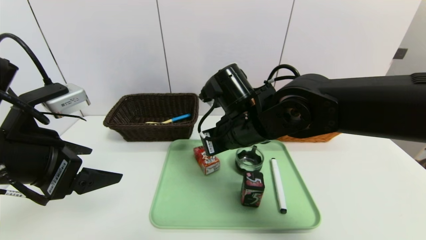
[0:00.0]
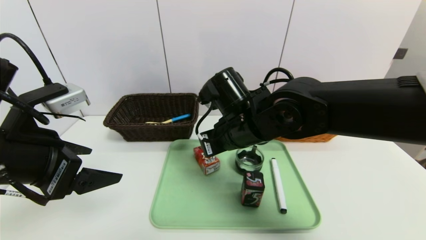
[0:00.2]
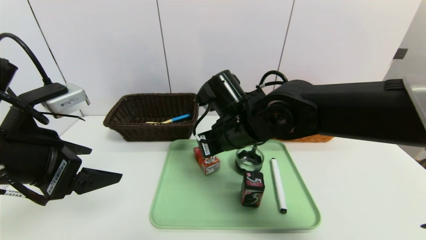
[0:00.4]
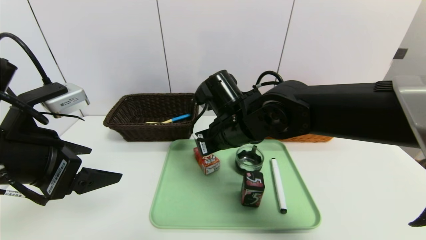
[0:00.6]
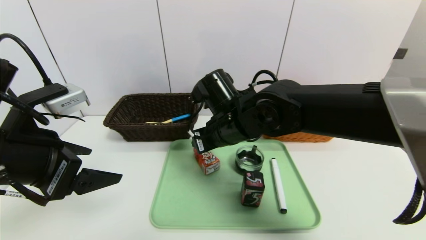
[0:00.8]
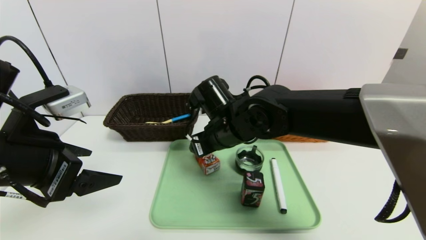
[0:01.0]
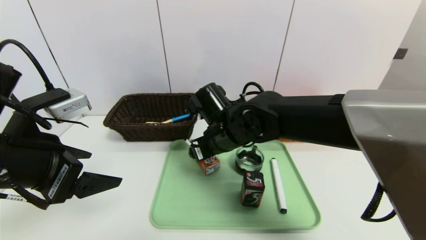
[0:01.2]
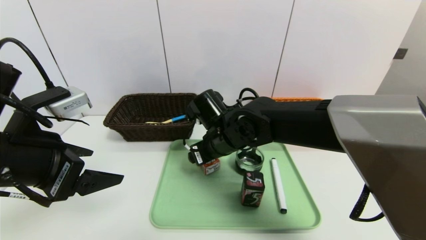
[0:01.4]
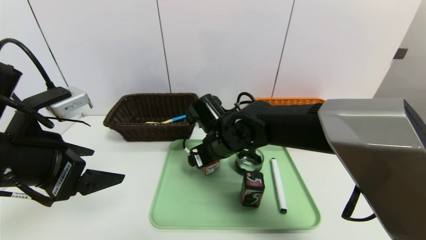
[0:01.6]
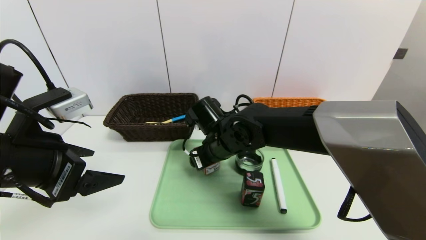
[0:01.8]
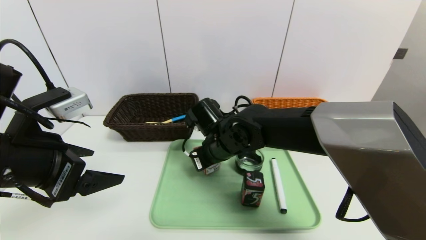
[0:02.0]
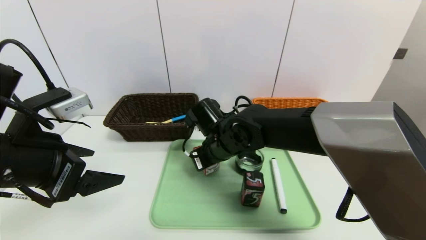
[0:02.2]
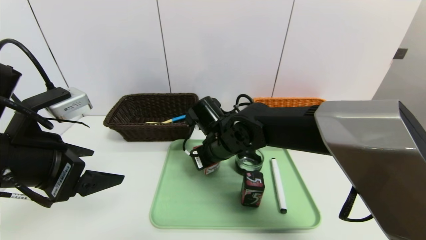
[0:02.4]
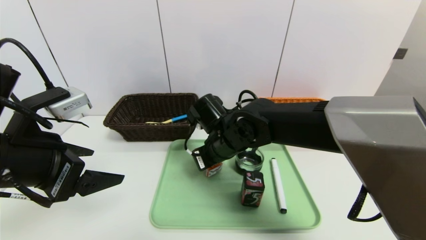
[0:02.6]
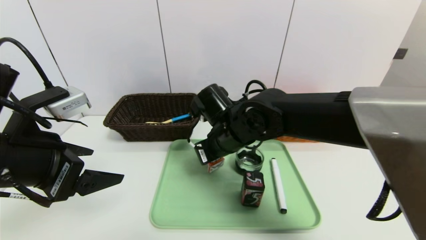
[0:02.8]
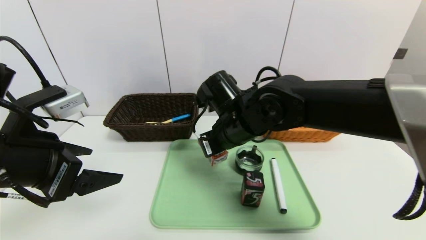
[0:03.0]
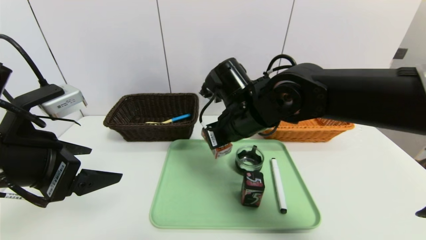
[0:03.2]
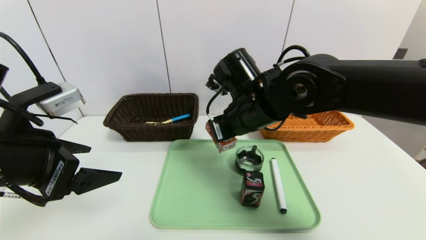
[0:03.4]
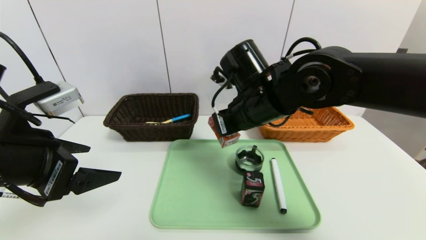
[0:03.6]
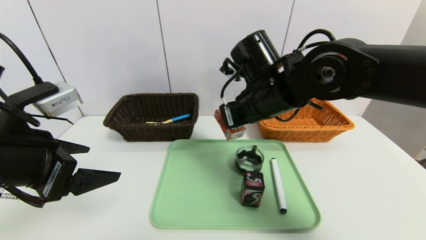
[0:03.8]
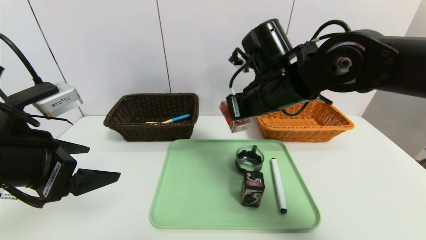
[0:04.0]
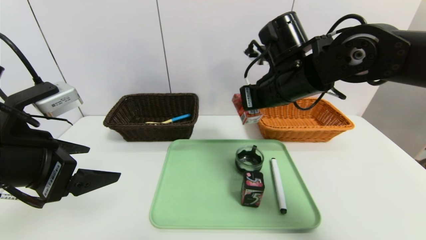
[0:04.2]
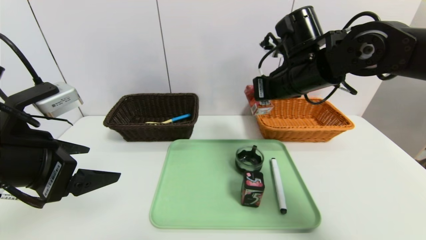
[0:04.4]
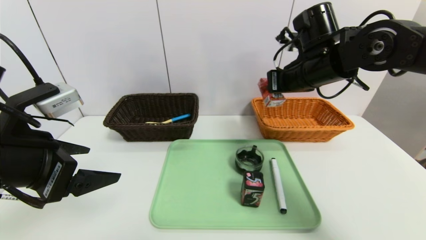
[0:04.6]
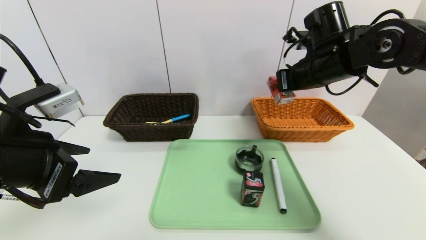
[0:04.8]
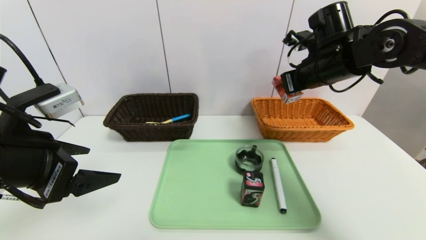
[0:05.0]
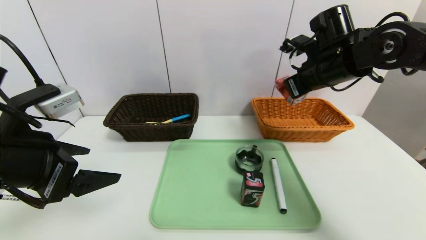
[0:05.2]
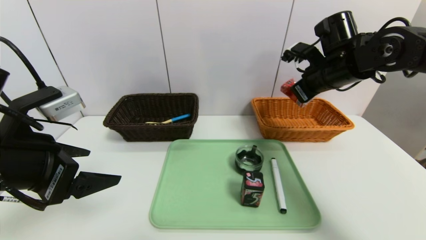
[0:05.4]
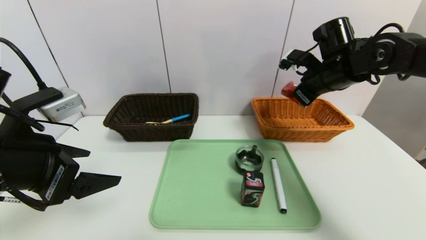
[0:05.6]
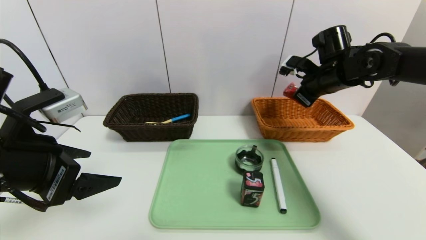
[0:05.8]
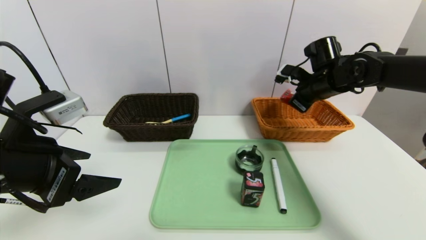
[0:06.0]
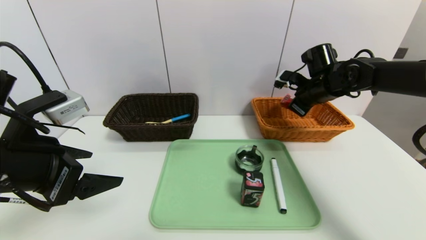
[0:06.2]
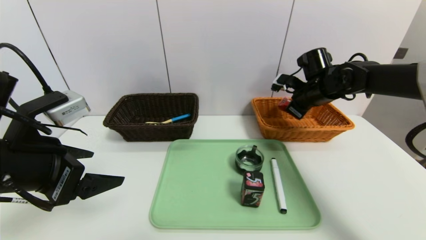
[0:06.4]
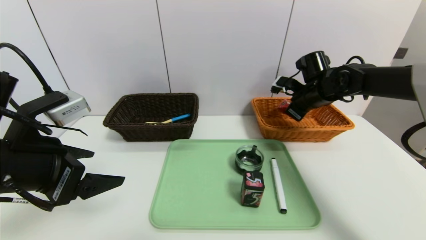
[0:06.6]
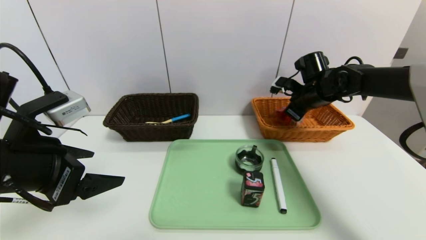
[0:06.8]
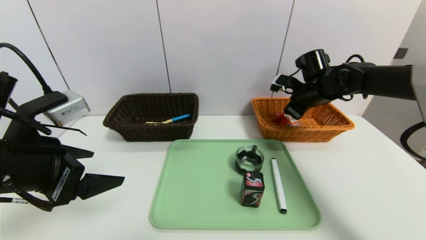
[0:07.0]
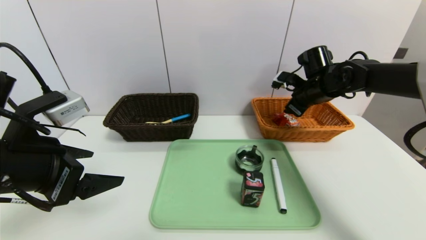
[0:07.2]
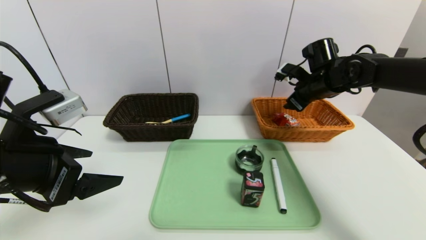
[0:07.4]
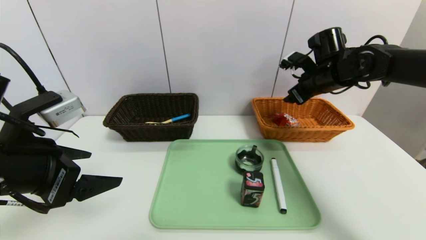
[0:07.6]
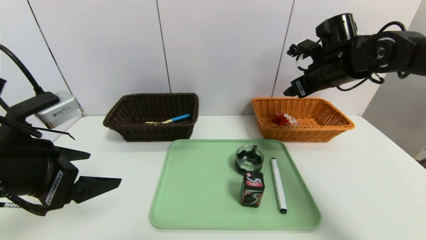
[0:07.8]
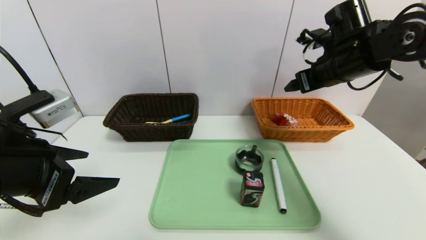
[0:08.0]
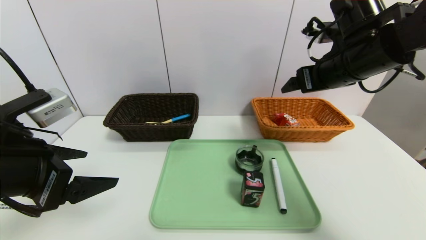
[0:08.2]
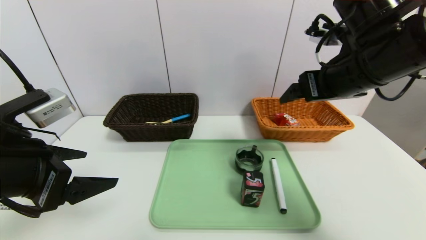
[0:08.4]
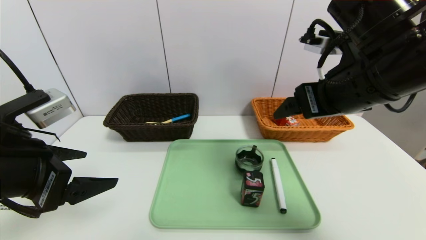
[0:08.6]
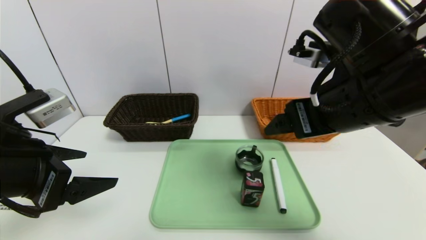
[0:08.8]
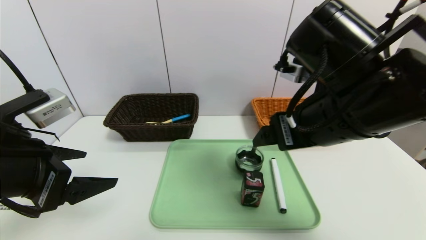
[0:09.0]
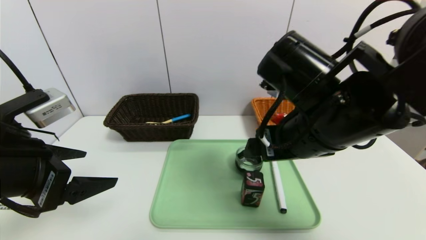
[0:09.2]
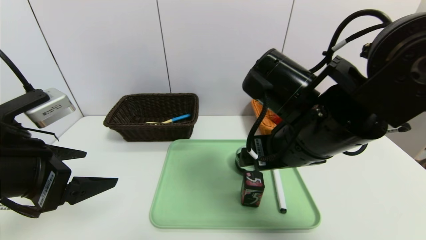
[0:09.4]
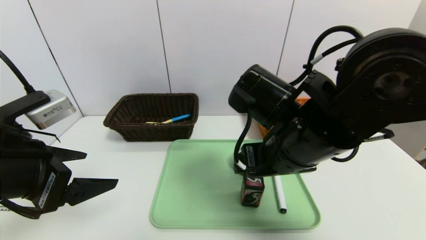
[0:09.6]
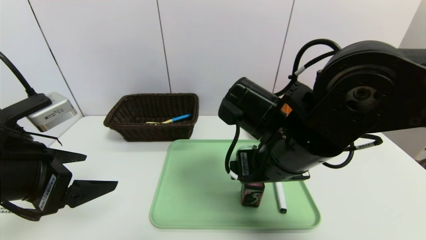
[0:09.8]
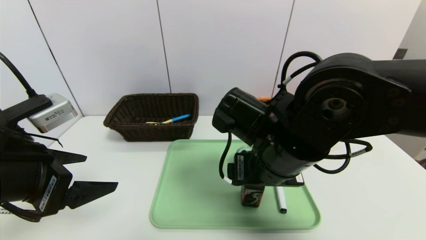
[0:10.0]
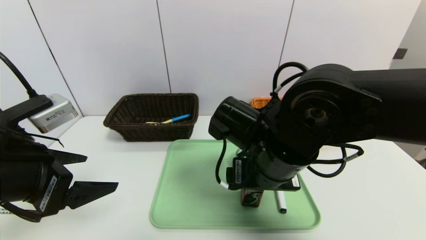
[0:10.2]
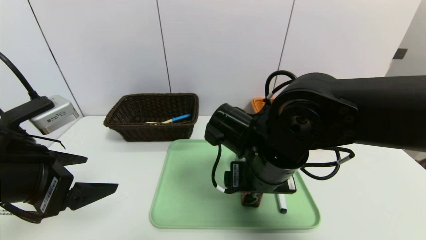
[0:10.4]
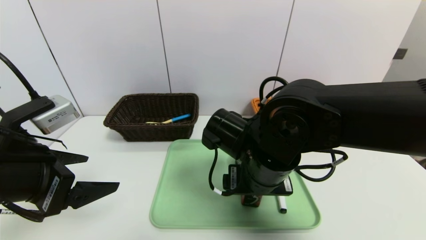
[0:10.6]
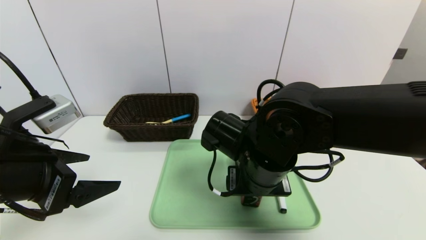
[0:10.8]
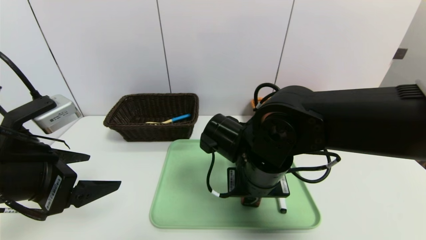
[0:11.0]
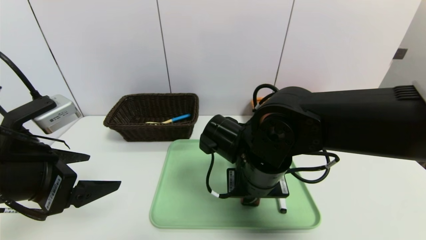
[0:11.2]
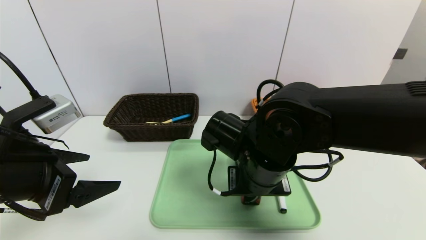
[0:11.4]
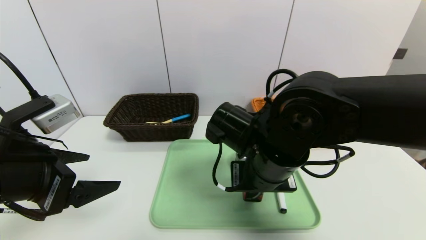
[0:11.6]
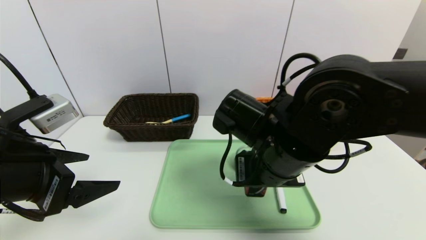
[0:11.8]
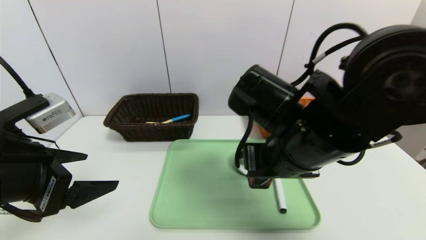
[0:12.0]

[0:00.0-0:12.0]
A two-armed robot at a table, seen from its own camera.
Task of the whole recording: place the food in the right basket with the right gripper, and place the non food items in the left basket with the left gripper.
Step, 0:00.0 to 0:07.0: Grasp the ad milk and put it in the right basket.
0:00.0 to 0:01.6: The right gripper shifts some 5 cm downward, and opens up.
0:01.6 to 0:03.0: The right gripper moves upward, some 5 cm, and closes up.
0:03.0 to 0:04.4: The right gripper heads to the right and upward, covering about 15 cm.
0:04.4 to 0:06.0: The right gripper travels to the right, forward and downward by approximately 15 cm.
0:06.0 to 0:07.6: The right gripper opens its fingers.
0:07.6 to 0:09.0: The right gripper is displaced backward and to the left by some 25 cm.
0:09.0 to 0:10.4: The right gripper moves downward and to the left, about 10 cm.
0:10.4 to 0:12.0: The right gripper goes roughly 5 cm upward, and closes up.

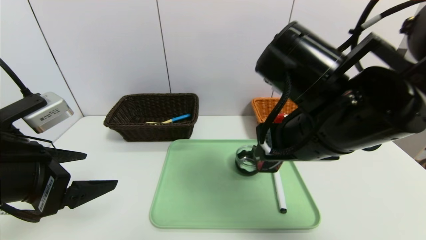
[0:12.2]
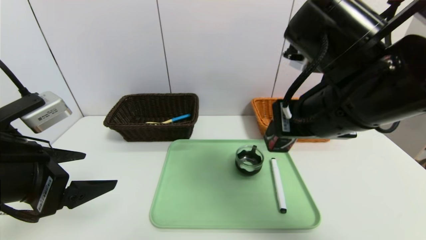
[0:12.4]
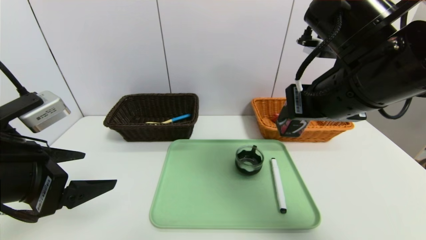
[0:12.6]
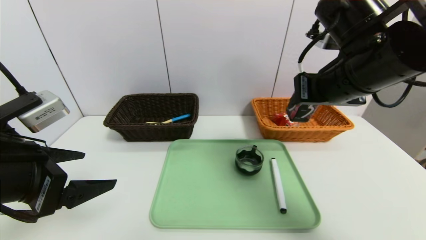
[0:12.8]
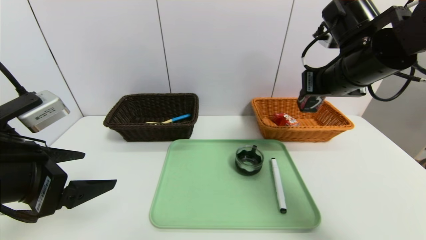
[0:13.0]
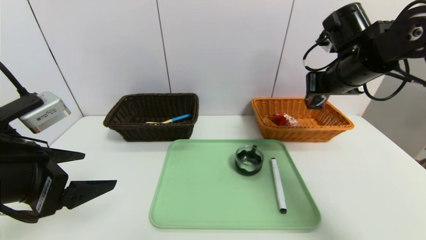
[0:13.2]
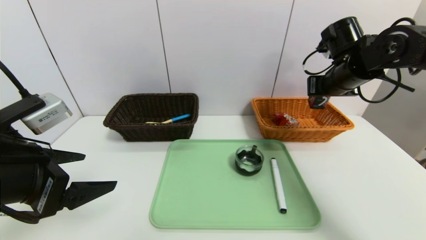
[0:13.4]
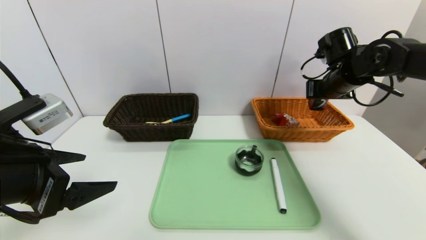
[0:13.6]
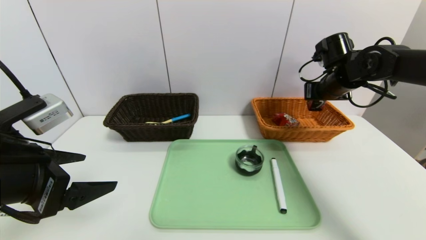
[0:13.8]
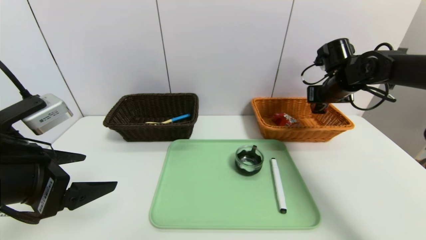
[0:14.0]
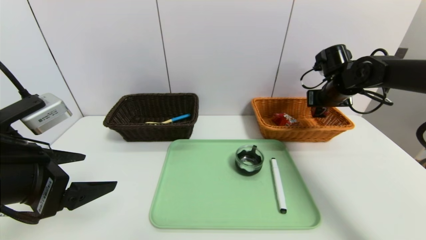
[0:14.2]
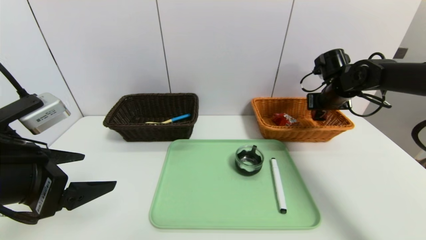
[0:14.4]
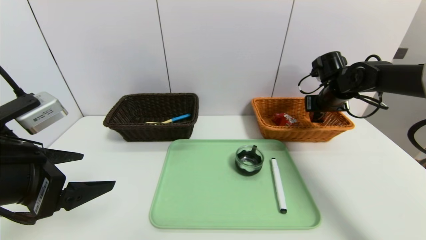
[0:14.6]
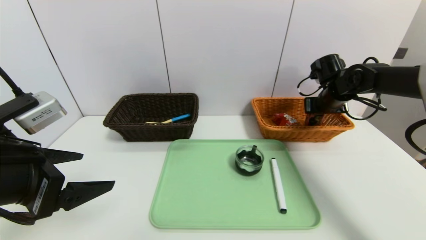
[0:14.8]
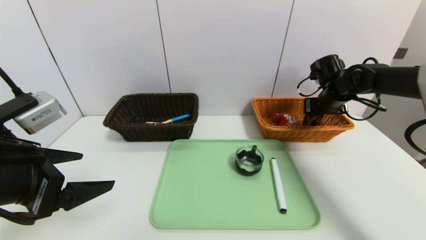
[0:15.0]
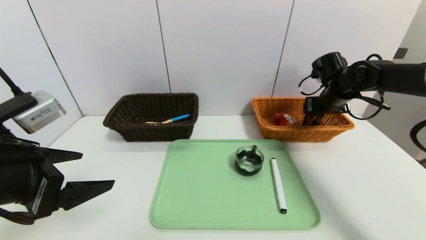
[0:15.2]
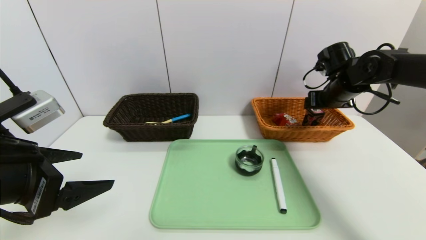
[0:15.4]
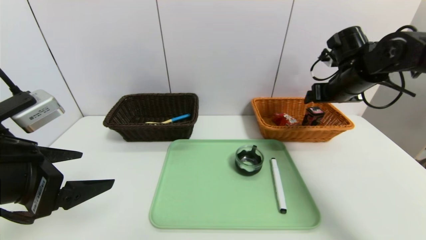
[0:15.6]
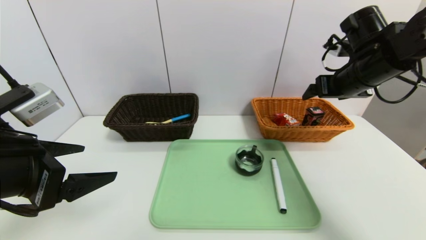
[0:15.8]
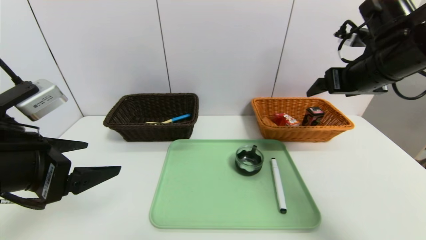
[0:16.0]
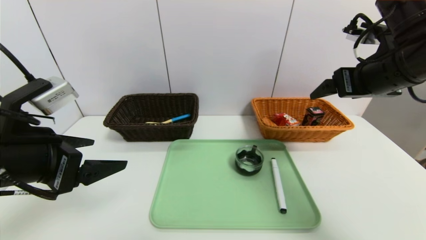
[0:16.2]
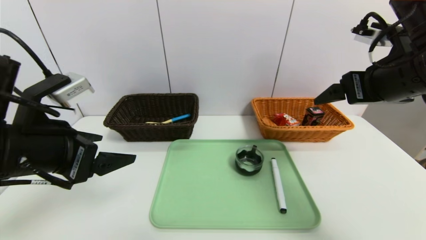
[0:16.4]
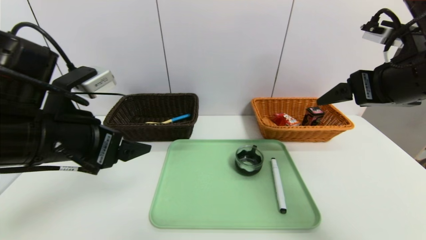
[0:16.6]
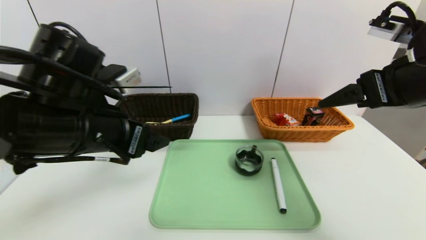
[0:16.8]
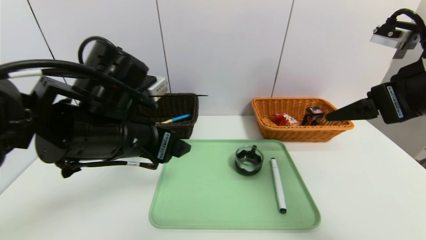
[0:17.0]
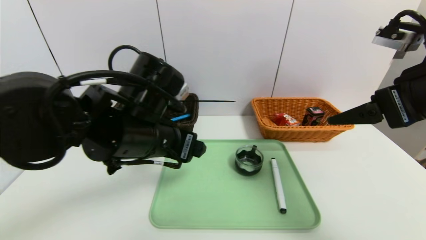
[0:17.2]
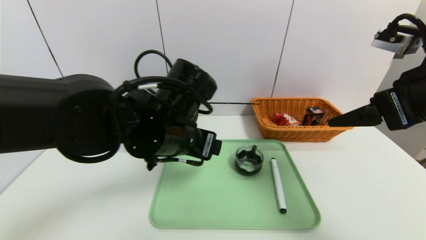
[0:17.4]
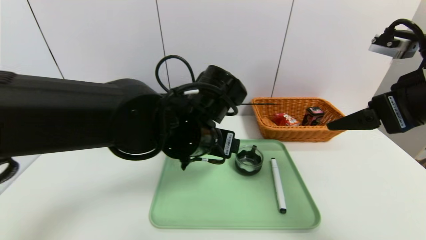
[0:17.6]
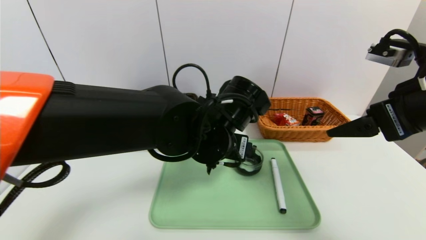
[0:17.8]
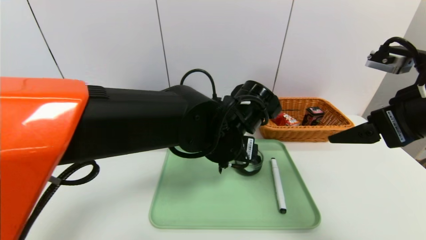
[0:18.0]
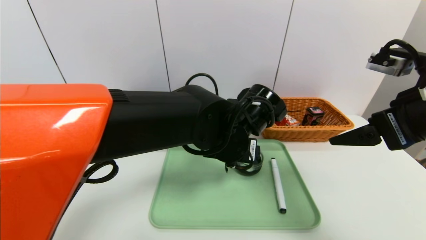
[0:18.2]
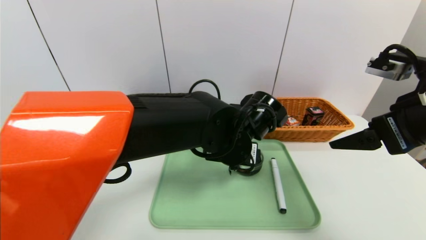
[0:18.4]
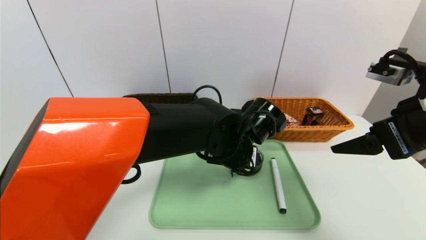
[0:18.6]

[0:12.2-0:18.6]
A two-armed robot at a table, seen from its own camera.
Task of the whole recording: place the food in the right basket with the right gripper, and place the non food items in the left basket with the left gripper.
Step, 0:12.2 to 0:15.2: Grasp the square chewing gum and put it in the right basket.
0:12.2 to 0:13.8: The right gripper heads forward and to the right, covering approximately 30 cm.
0:13.8 to 0:15.4: The right gripper opens.
0:15.4 to 0:17.0: The right gripper goes some 25 cm backward and upward, while the left gripper heads to the right and forward, covering some 15 cm.
0:17.0 to 0:18.6: The left gripper goes approximately 20 cm to the right and downward.
